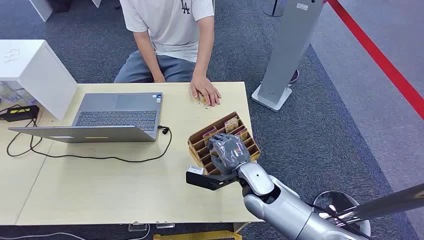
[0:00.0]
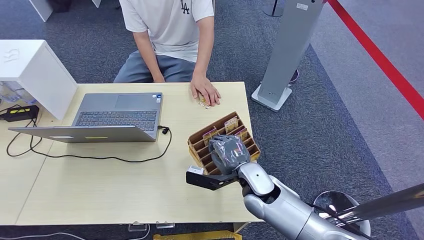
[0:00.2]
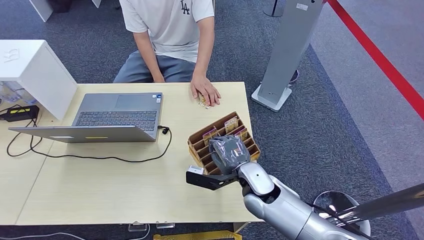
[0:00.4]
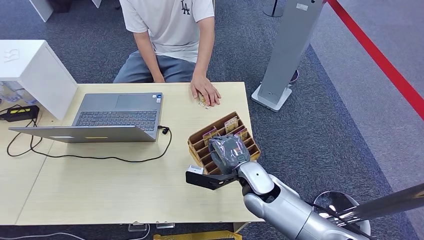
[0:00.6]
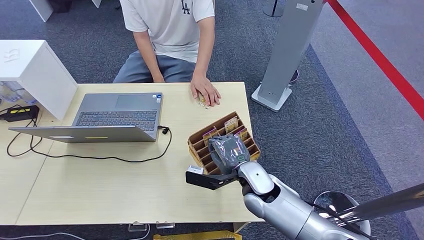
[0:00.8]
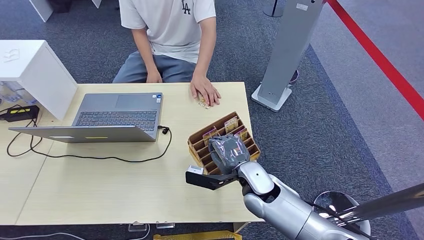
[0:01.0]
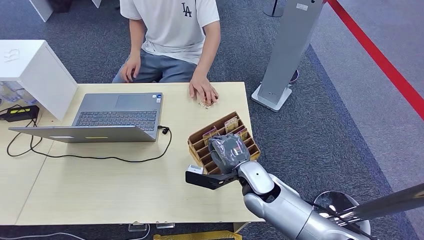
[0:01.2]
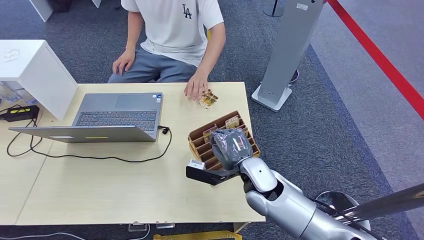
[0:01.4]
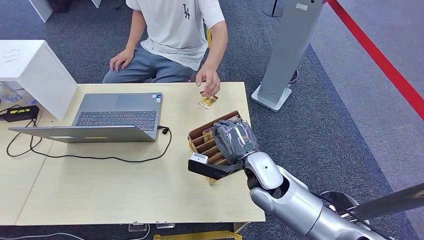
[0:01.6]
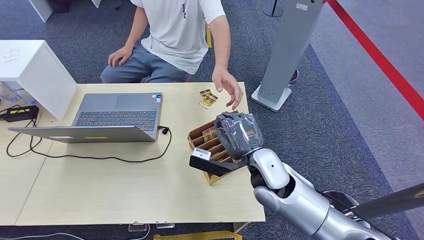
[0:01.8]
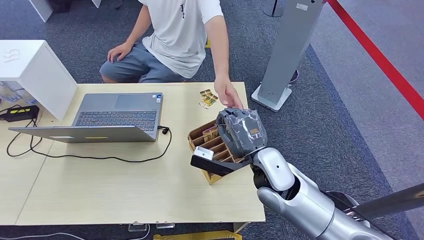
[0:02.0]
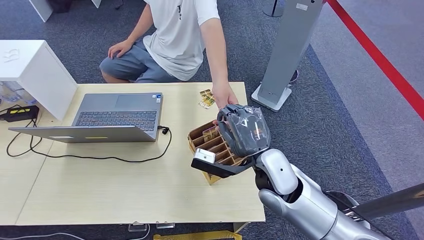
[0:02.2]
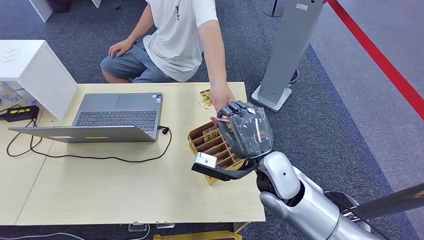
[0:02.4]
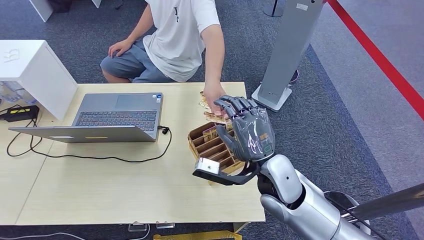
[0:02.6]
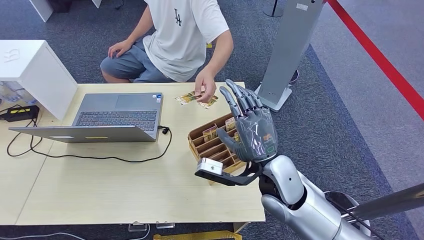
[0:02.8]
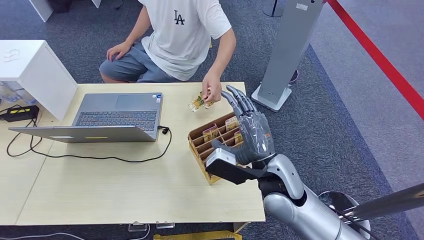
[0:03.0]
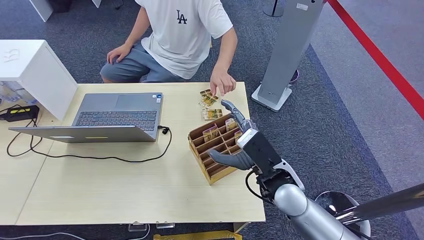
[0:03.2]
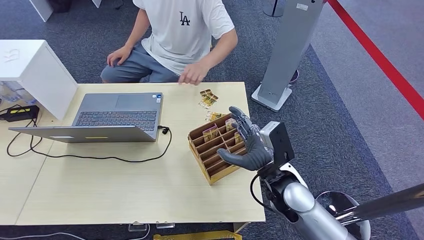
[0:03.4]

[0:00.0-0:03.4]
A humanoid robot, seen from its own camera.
Step, 0:00.0 to 0:01.6: Pick up the room card from the card holder.
Step, 0:01.8 to 0:03.4: Hand the room card to the target.
0:01.6 to 0:03.4: The right hand shifts roughly 5 cm to the right.

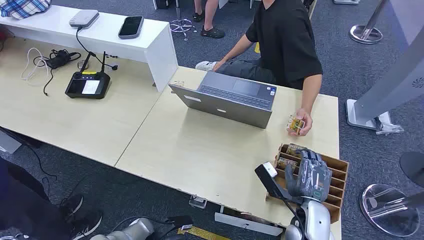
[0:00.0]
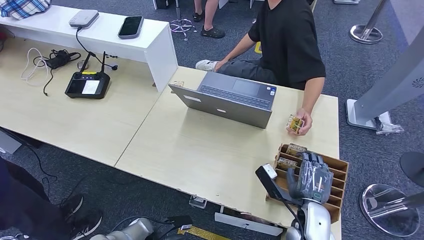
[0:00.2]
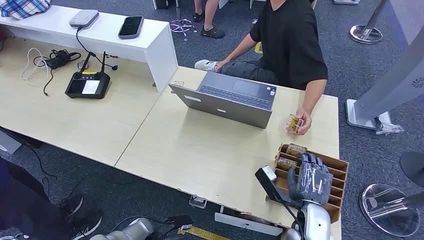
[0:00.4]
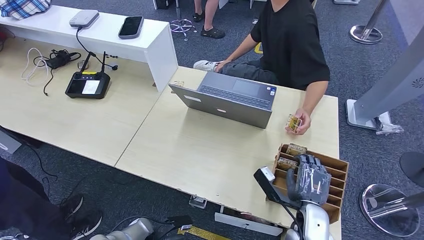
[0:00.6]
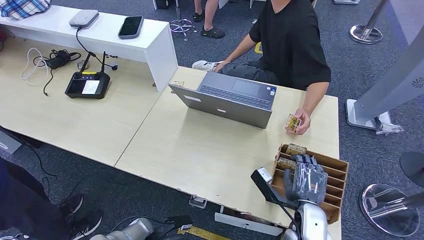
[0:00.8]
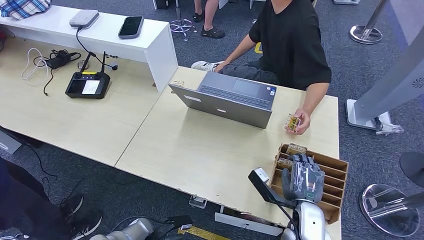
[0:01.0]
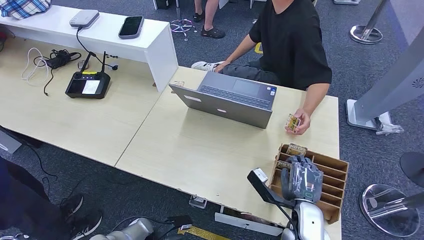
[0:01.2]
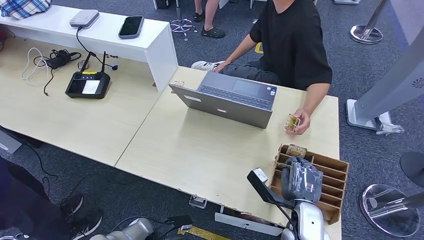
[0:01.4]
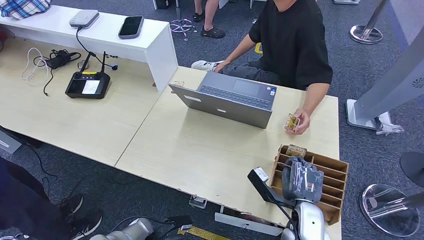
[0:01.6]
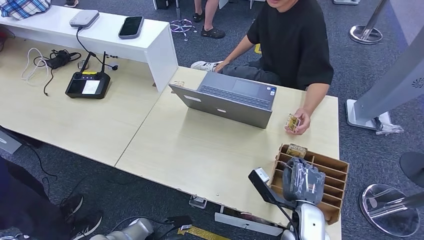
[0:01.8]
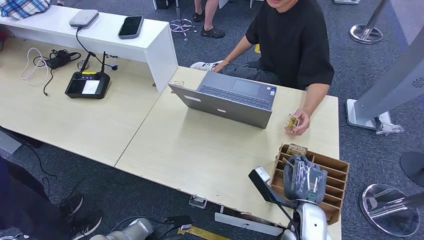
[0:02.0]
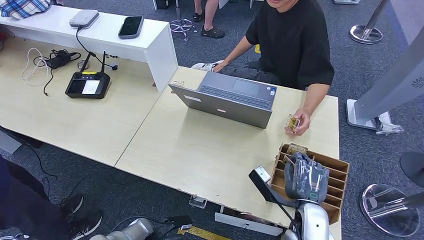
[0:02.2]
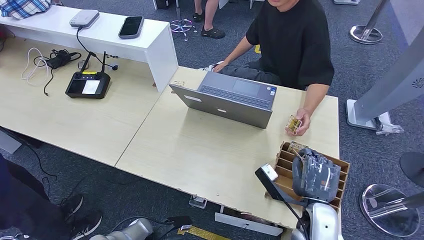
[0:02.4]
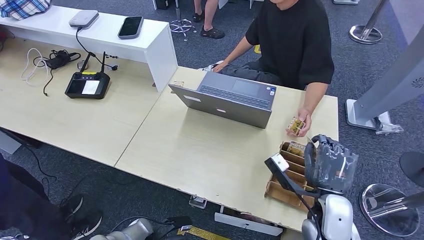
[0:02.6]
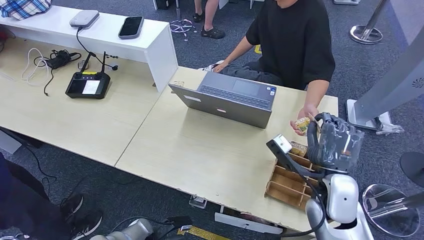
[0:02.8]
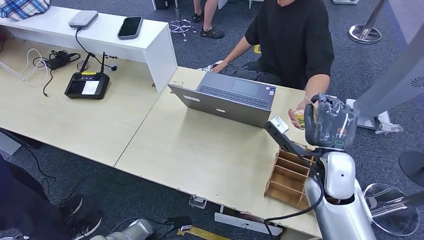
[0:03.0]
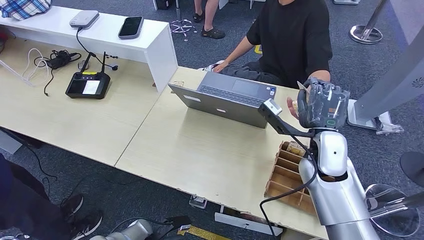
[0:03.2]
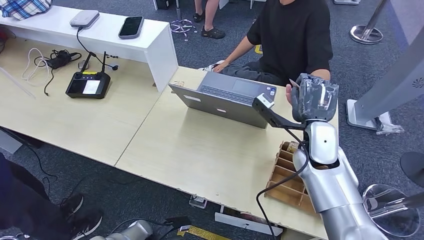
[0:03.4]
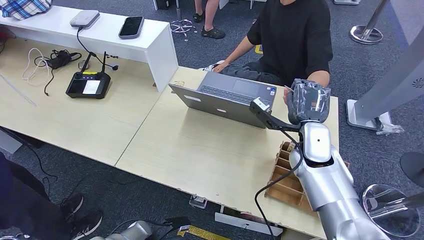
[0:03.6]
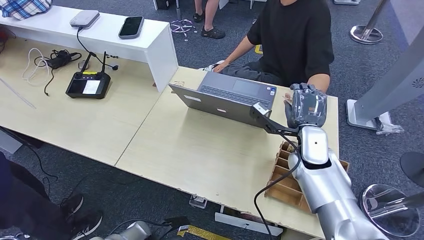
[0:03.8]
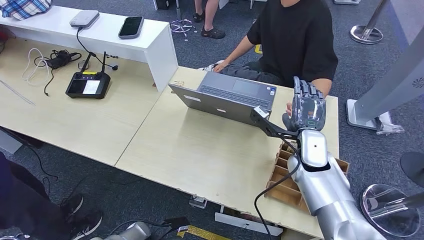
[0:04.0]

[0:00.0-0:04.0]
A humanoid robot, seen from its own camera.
Step, 0:00.0 to 0:01.8: Pick up the room card from the card holder.
Step, 0:02.0 to 0:04.0: Hand the room card to the target.
0:01.4 to 0:02.6: The right hand goes roughly 5 cm upward.
0:02.6 to 0:04.0: The right hand goes about 15 cm forward and upward.

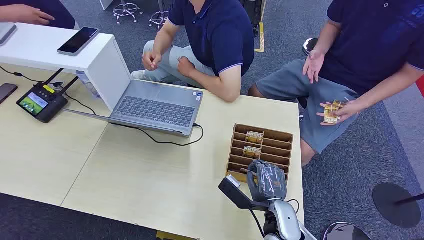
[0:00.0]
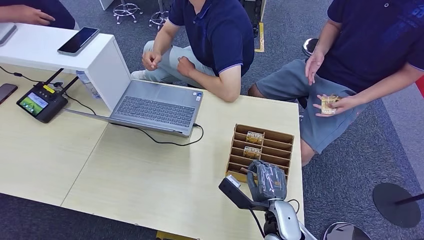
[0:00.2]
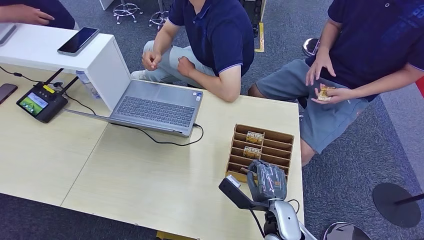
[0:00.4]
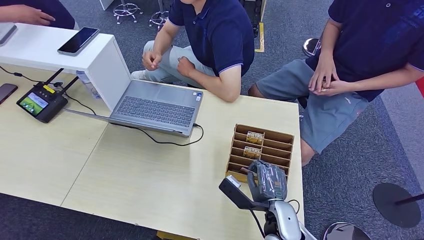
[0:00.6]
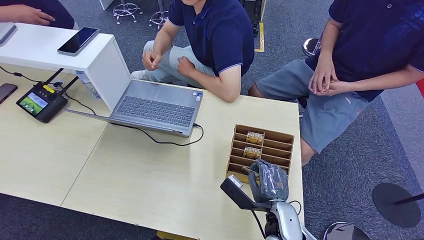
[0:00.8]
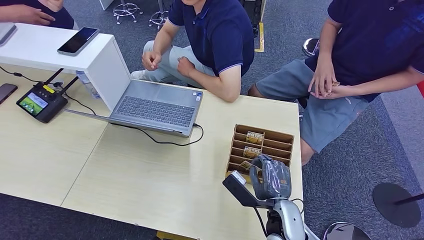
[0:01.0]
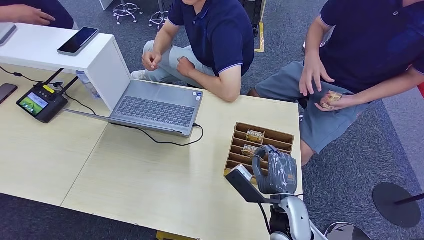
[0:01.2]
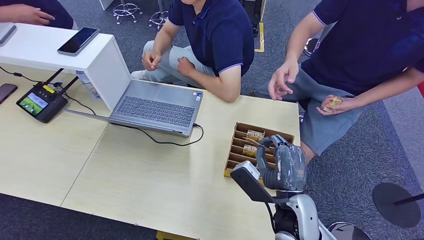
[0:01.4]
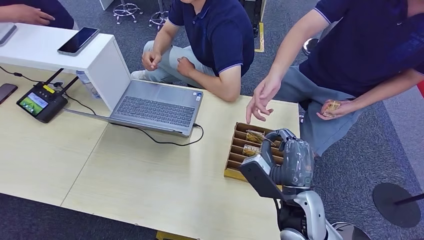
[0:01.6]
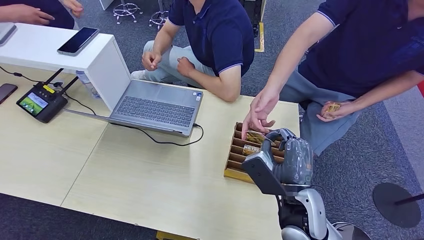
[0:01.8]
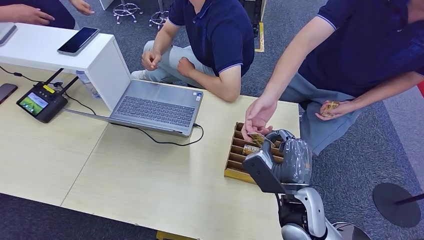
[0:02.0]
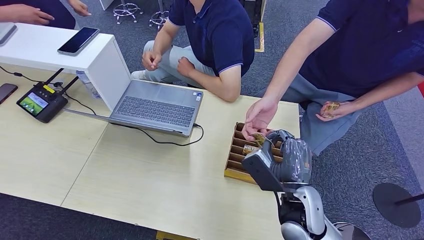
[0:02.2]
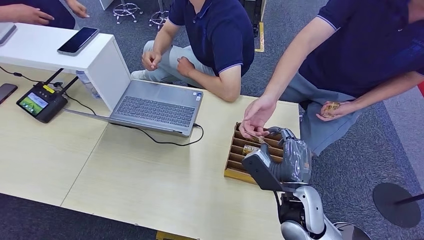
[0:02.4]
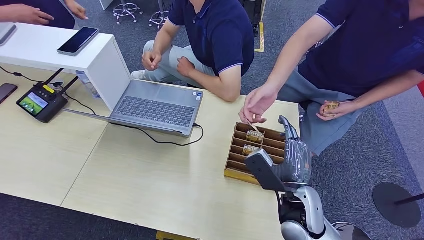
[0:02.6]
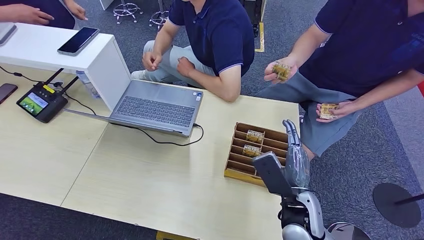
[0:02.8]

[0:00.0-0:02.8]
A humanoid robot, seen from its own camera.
Step, 0:00.0 to 0:01.4: Pick up the room card from the card holder.
Step, 0:01.6 to 0:02.8: Hand the room card to the target.
0:01.4 to 0:02.8: The hands move only a little.

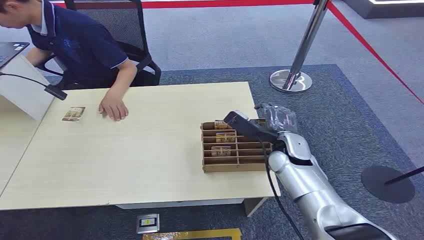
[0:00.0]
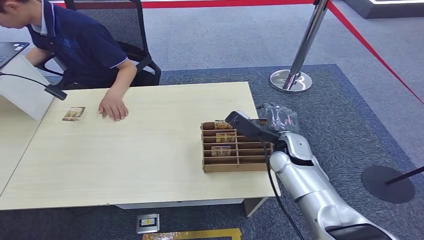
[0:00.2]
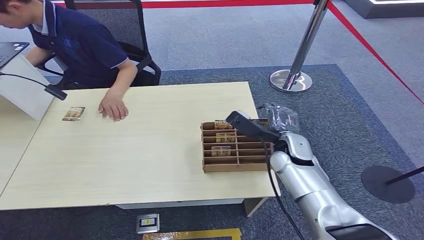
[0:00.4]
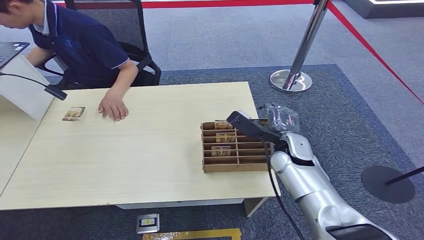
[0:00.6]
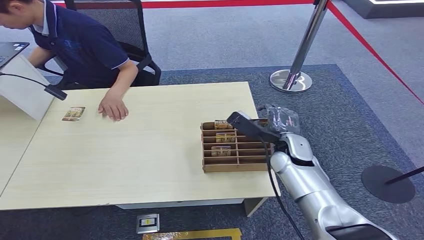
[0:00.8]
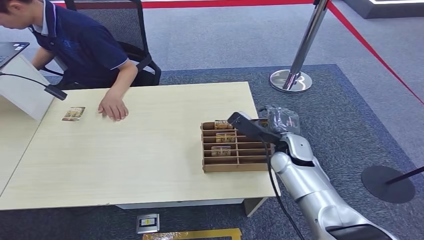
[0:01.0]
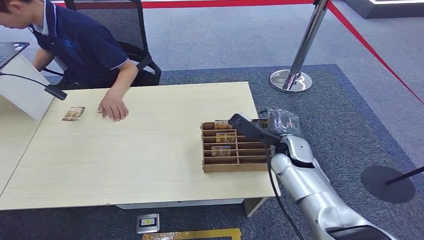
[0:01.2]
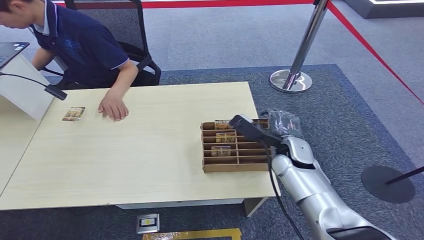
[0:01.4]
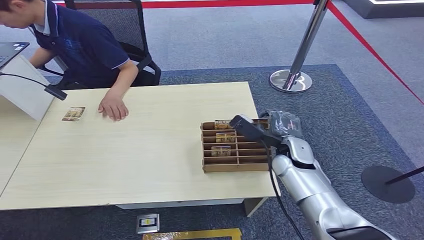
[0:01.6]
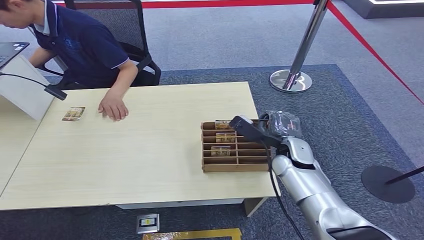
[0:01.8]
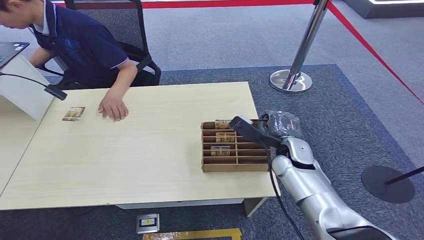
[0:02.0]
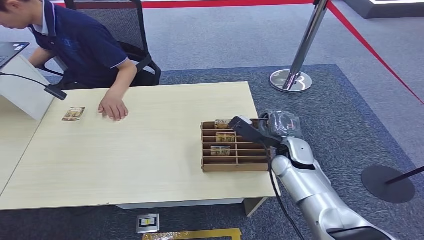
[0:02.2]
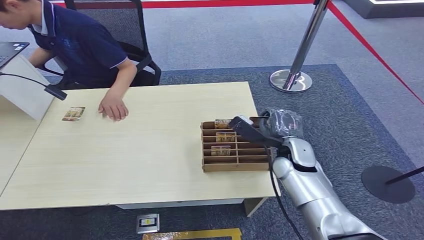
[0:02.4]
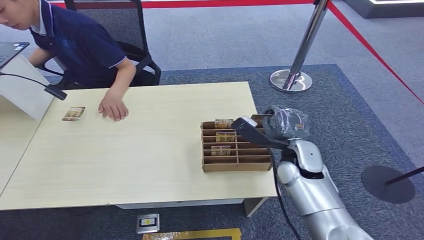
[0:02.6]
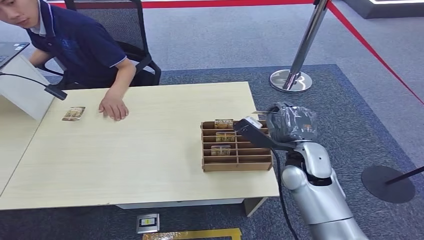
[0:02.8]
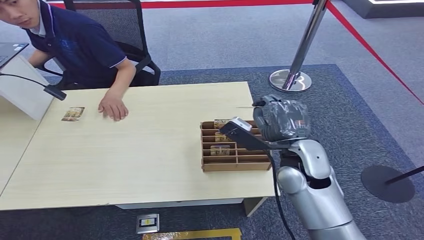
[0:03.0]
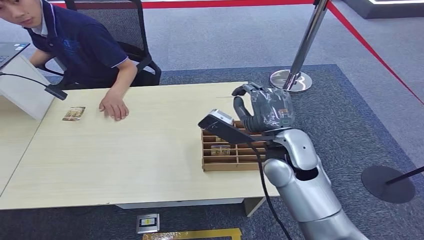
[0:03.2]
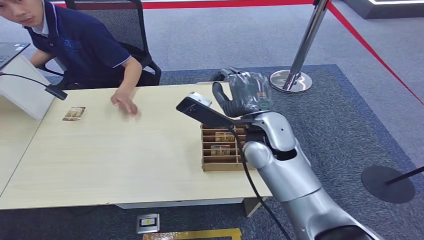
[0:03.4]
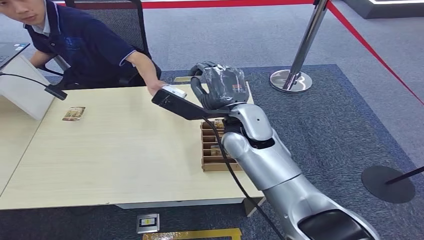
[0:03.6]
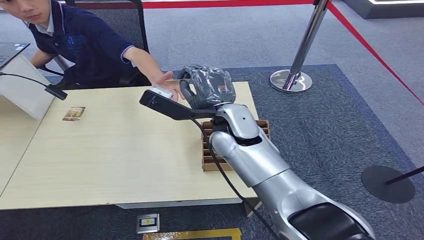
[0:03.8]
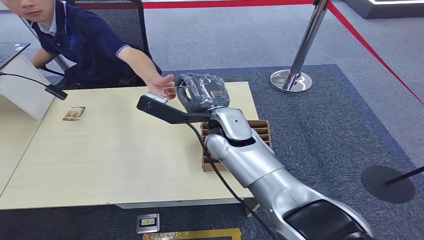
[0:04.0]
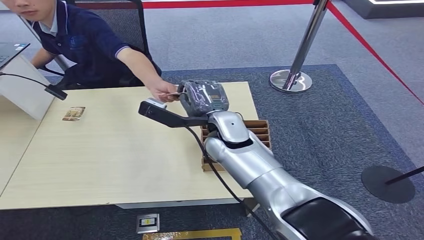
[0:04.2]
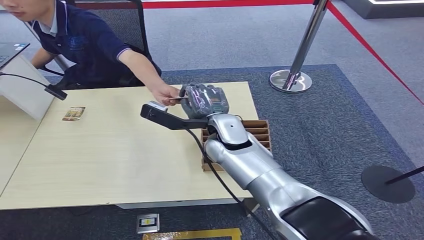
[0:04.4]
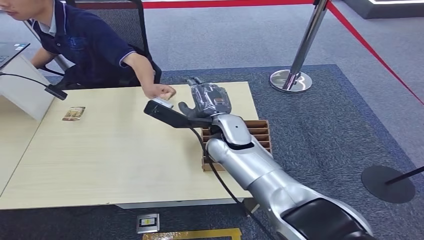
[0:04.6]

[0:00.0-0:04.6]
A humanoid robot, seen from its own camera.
Step, 0:00.0 to 0:02.8: Pick up the room card from the card holder.
Step, 0:03.0 to 0:04.6: Hand the room card to the target.
0:01.6 to 0:03.0: The right hand heads upward, covering some 10 cm.
0:03.0 to 0:04.6: The right hand shifts approximately 15 cm to the left and forward.
